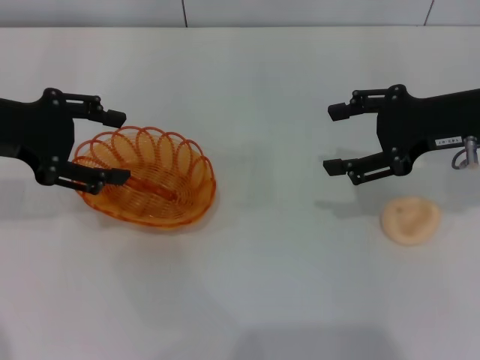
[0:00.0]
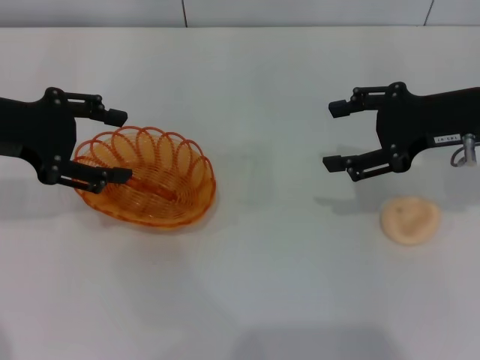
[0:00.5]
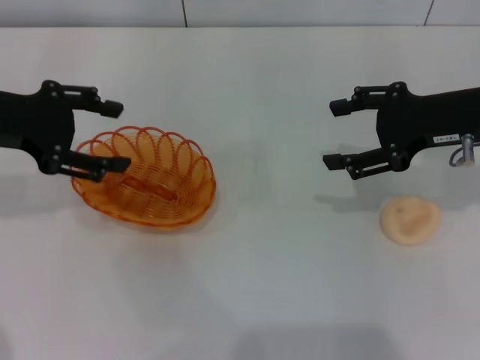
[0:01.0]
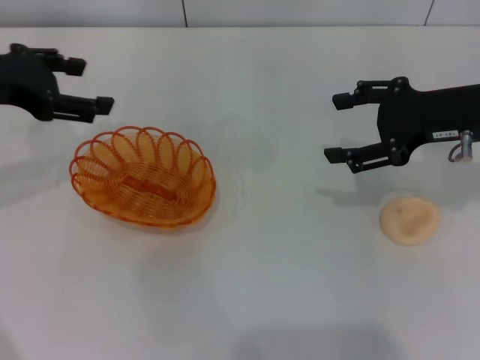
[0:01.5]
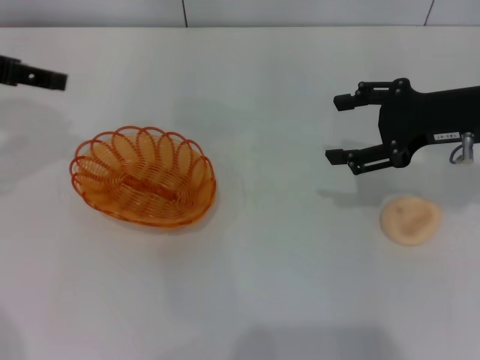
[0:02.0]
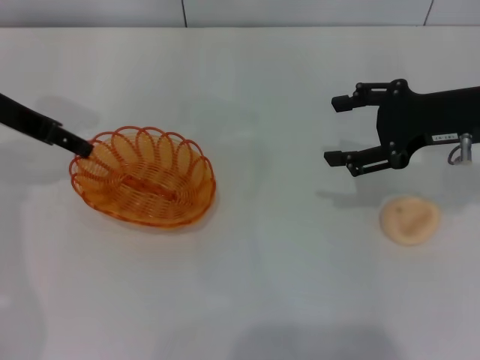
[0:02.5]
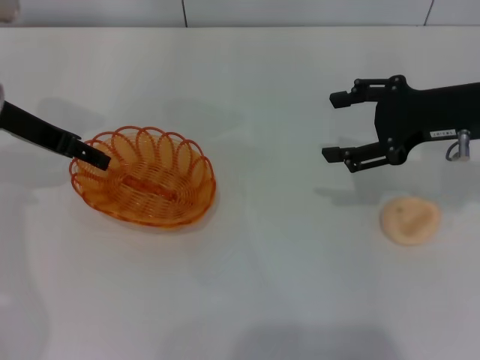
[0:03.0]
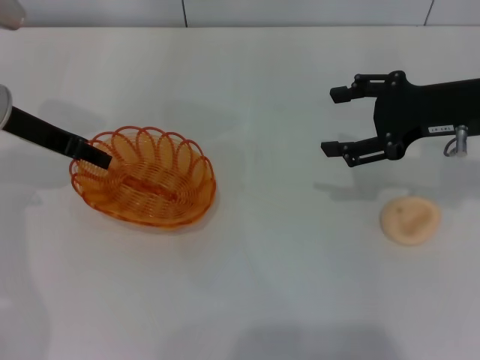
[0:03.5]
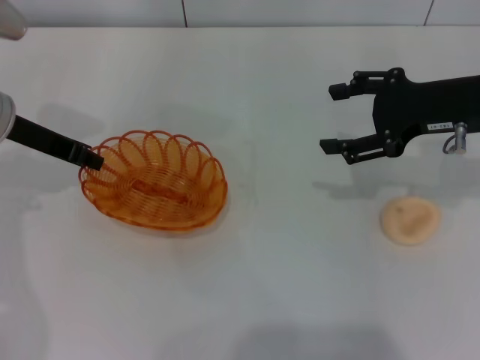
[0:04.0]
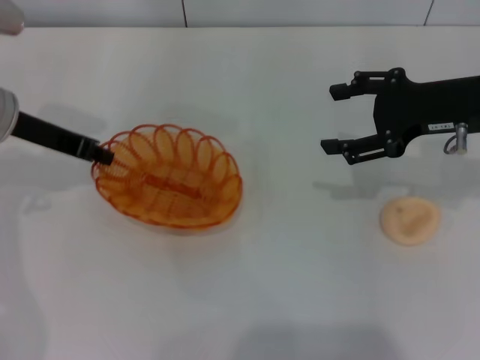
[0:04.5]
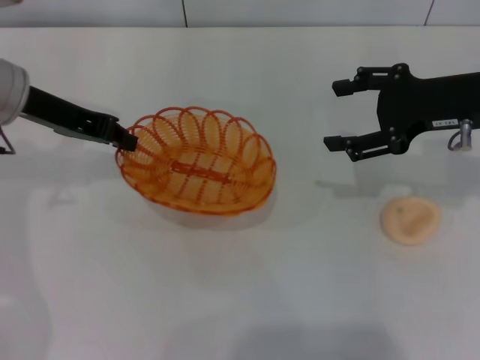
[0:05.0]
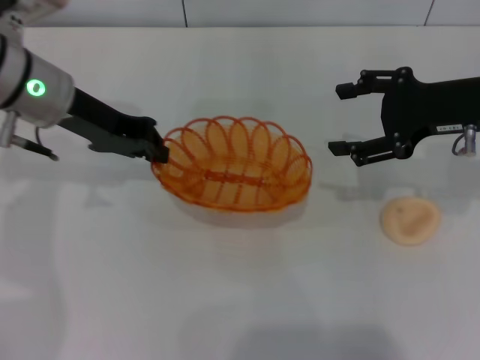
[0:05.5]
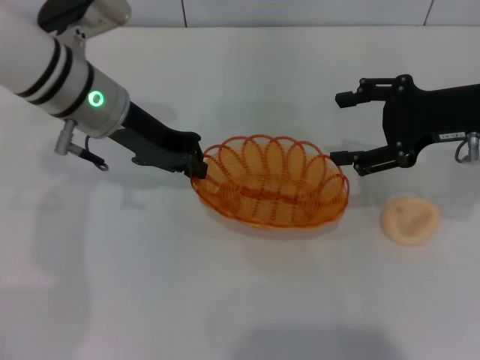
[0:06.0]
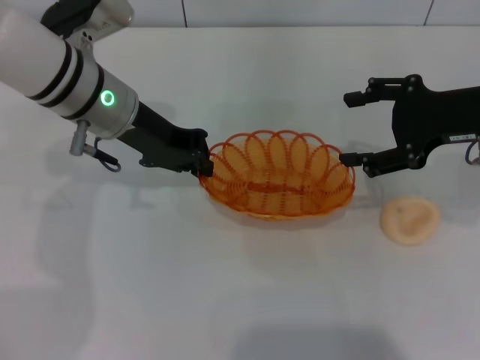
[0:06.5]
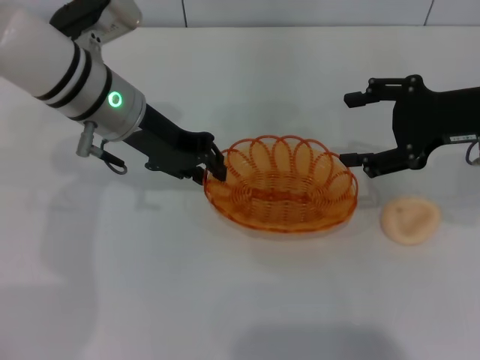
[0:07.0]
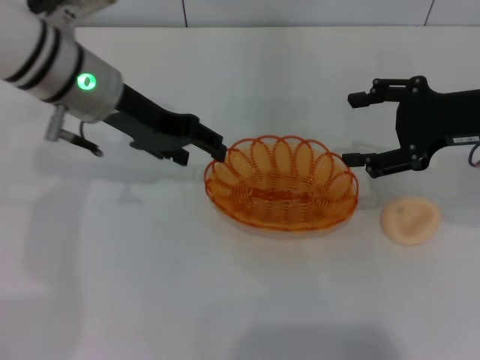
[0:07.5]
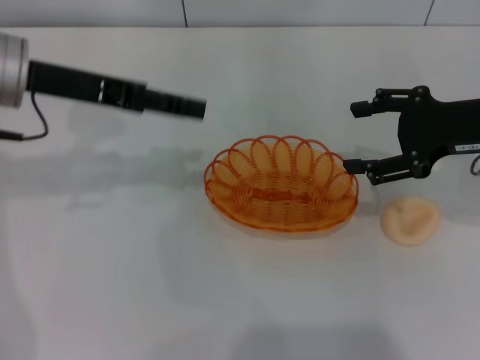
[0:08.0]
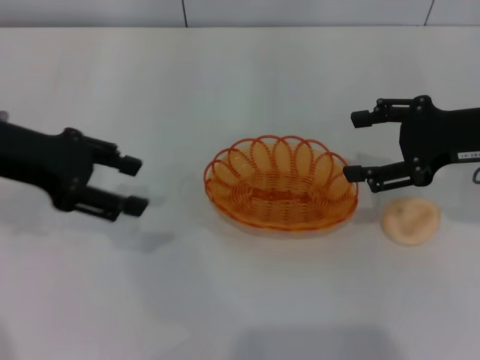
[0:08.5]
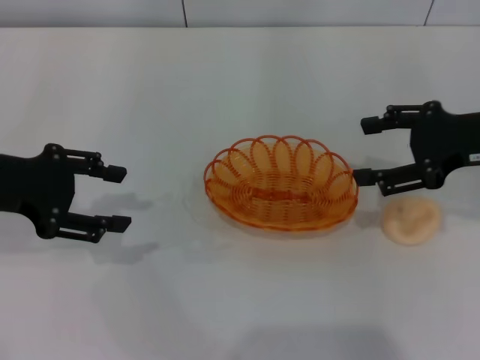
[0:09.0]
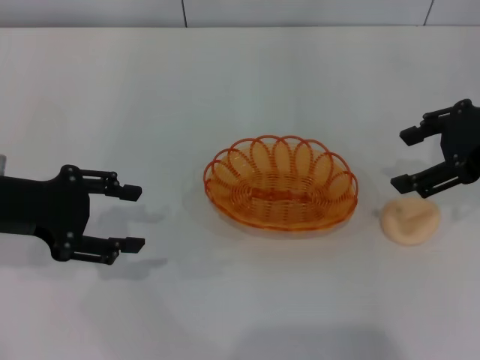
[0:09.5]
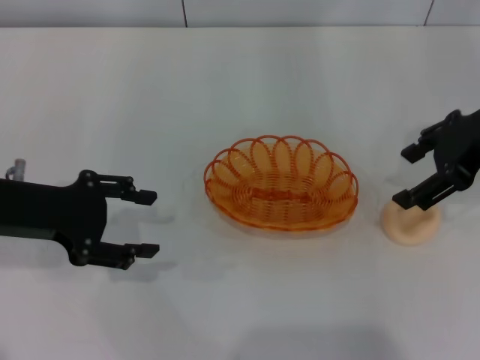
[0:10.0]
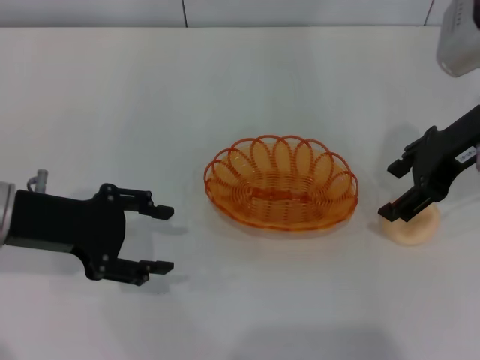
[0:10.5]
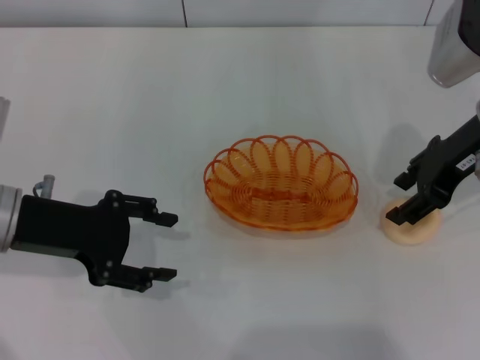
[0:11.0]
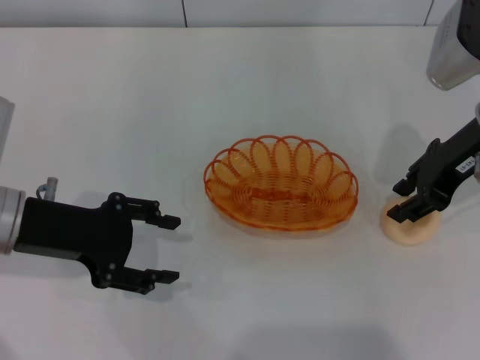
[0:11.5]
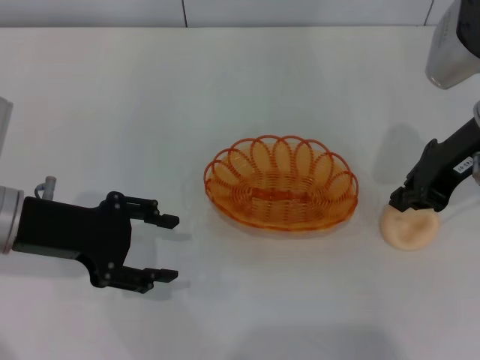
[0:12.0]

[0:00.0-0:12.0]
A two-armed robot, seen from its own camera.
Step, 0:00.0 to 0:04.5: Pick up the basket with the left gripper.
Step, 0:05.0 to 0:08.0: Place the basket in the center of view with the left gripper.
0:00.0 to 0:02.0: The left gripper changes place by some 5 cm.
0:02.0 to 0:04.0: The left gripper goes approximately 10 cm downward, and closes up.
0:04.0 to 0:06.0: The left gripper goes approximately 10 cm to the right.
0:06.0 to 0:08.0: The left gripper moves to the left, about 5 cm, and opens up.
0:08.0 to 0:10.0: The right gripper shifts about 5 cm upward. Meanwhile the left gripper goes approximately 10 cm backward and downward.
0:10.0 to 0:12.0: The right gripper closes up.

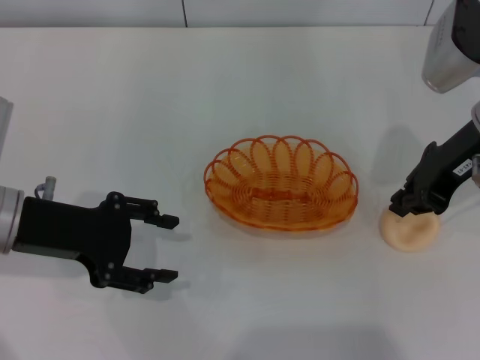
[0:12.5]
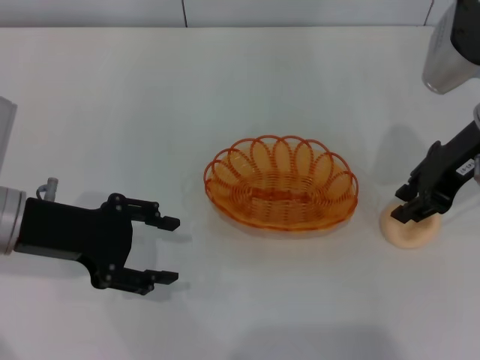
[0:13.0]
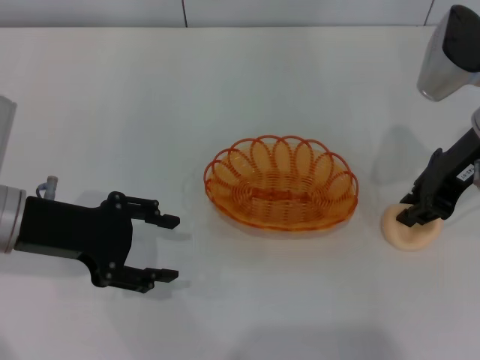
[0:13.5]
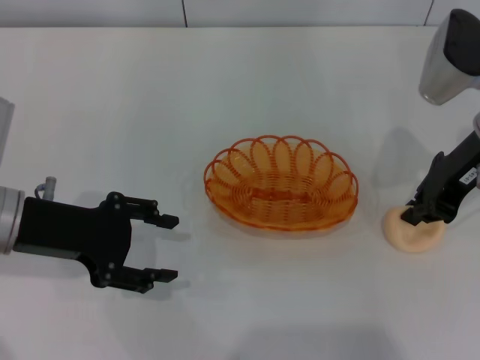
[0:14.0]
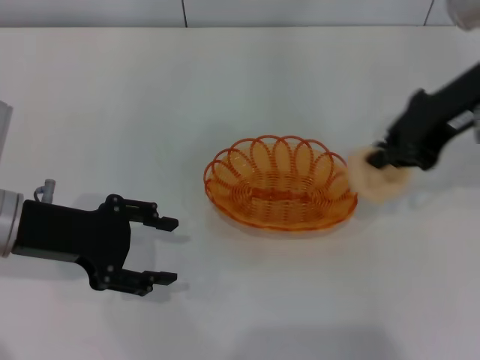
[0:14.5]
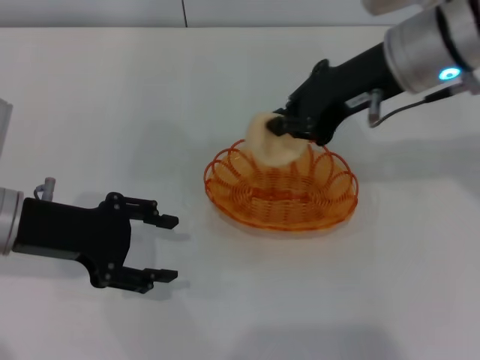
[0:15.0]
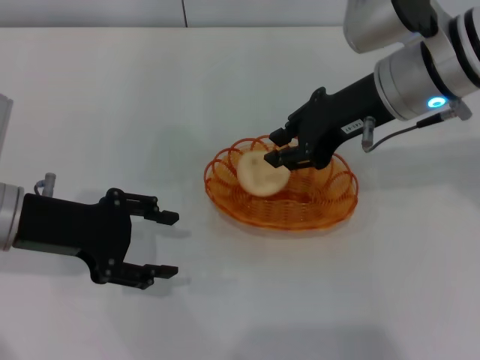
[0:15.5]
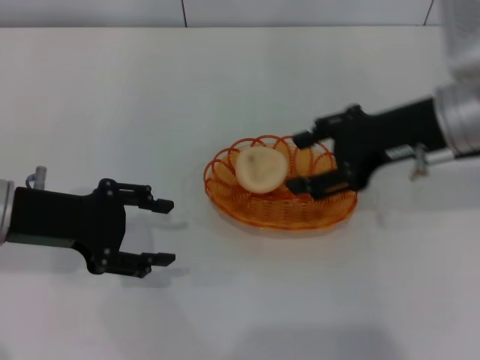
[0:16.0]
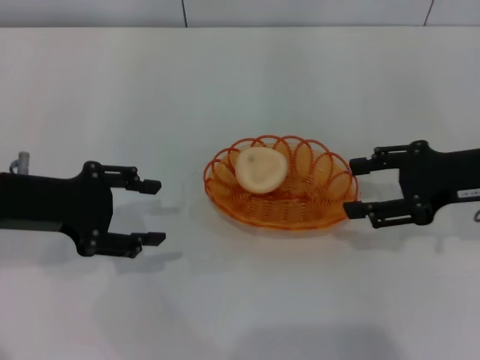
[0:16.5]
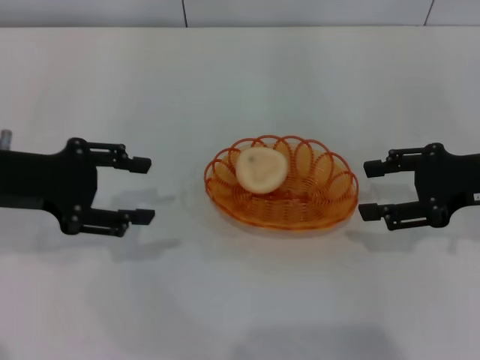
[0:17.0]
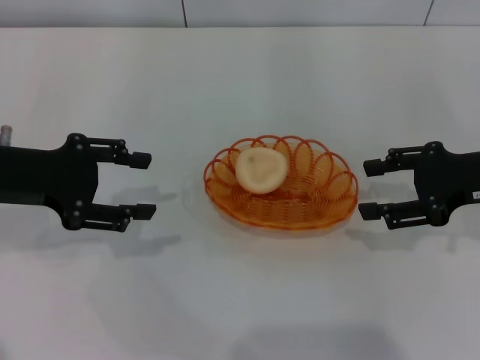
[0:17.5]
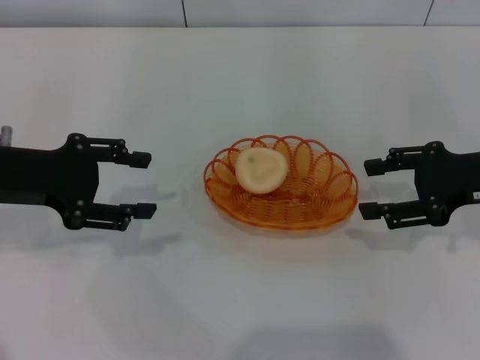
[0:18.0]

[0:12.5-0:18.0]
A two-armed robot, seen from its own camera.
Step, 0:14.5 to 0:16.0: Place the egg yolk pastry into the basket with the right gripper.
0:12.5 to 0:14.5: The right gripper travels upward by approximately 5 cm, and opens, then closes once more.
0:14.5 to 0:16.0: The right gripper heads downward, covering about 5 cm, and opens up.
0:16.0 to 0:18.0: The right gripper shifts approximately 10 cm to the right.

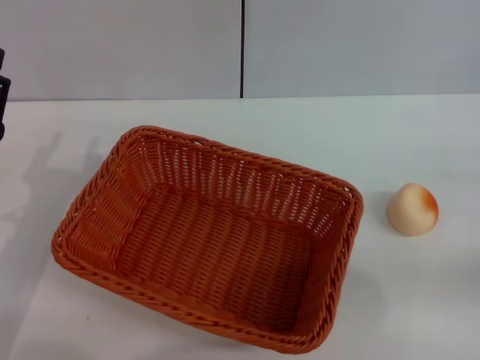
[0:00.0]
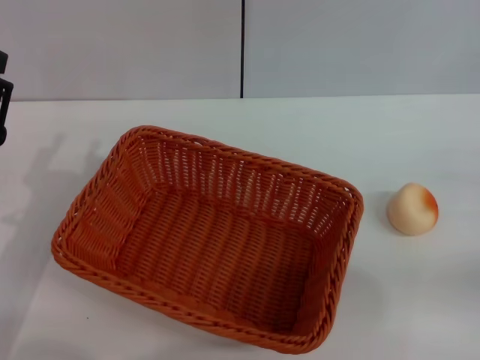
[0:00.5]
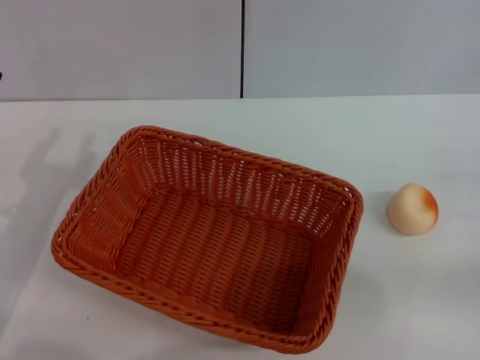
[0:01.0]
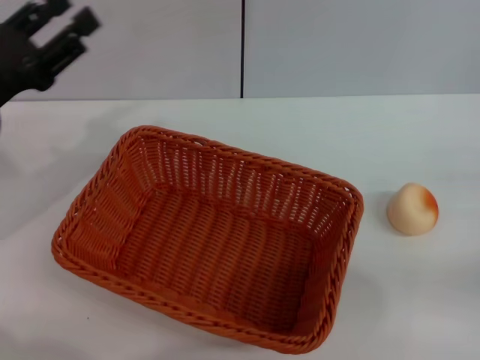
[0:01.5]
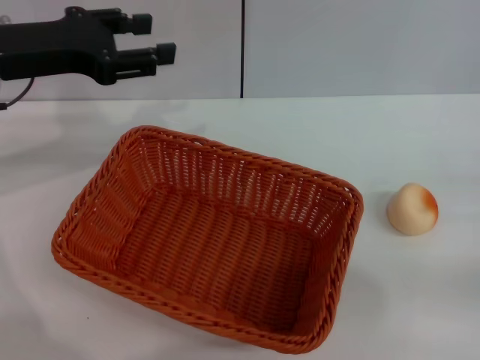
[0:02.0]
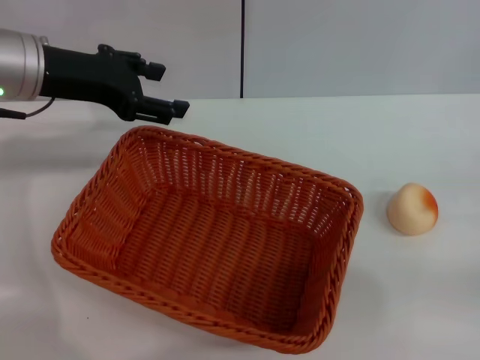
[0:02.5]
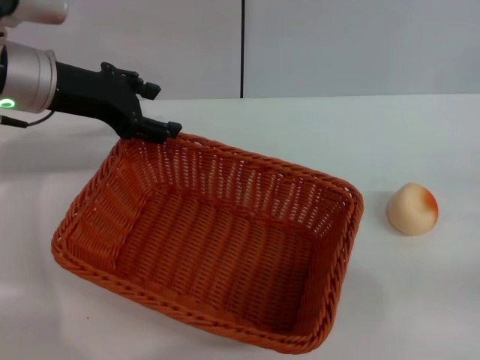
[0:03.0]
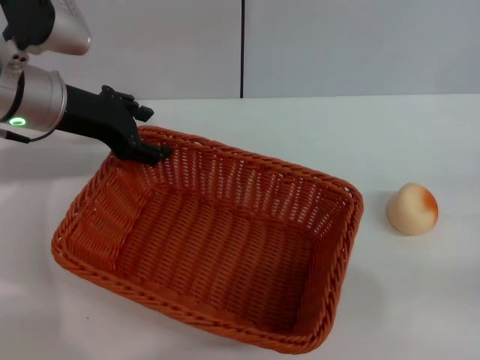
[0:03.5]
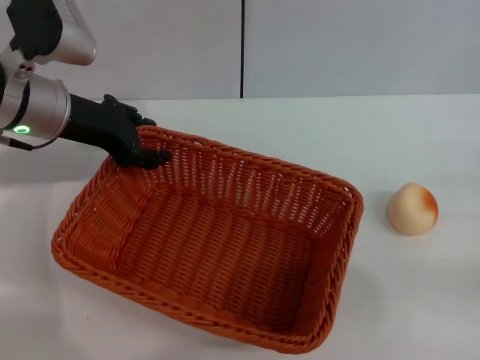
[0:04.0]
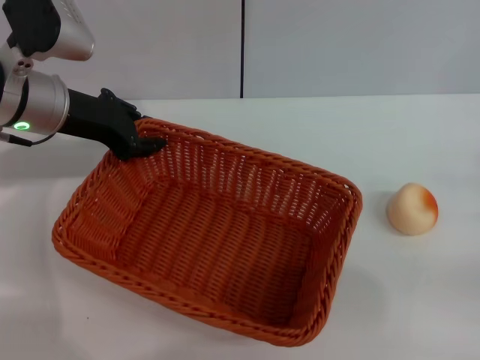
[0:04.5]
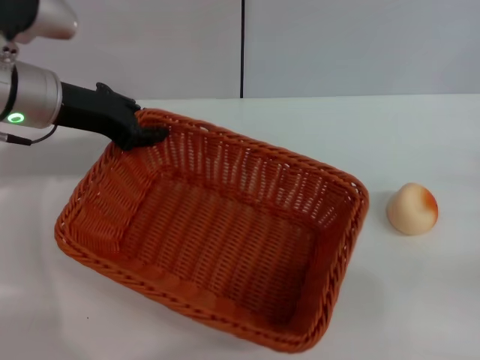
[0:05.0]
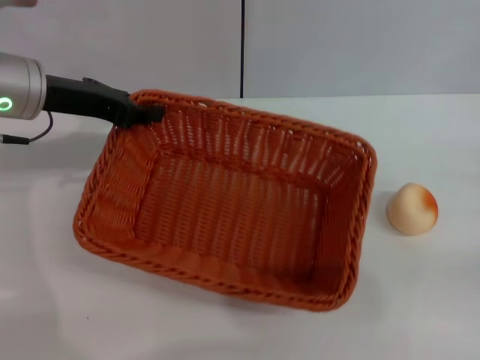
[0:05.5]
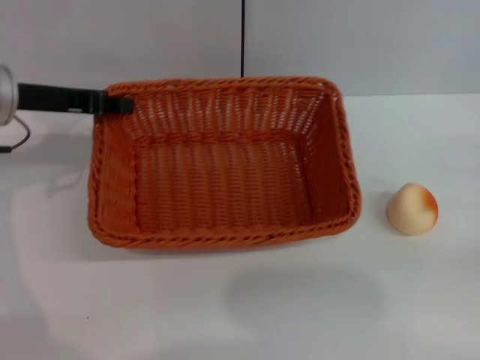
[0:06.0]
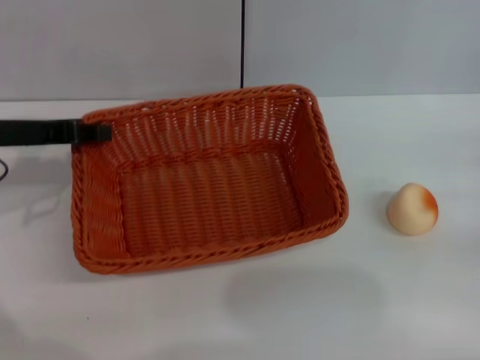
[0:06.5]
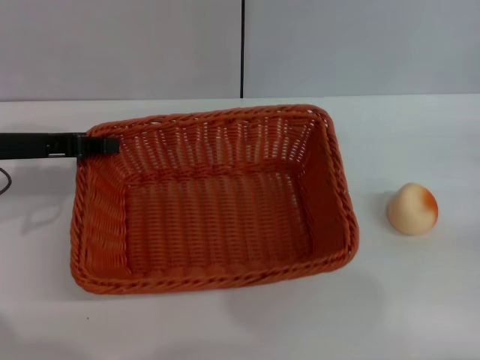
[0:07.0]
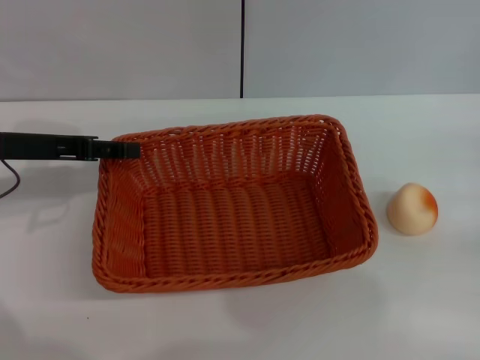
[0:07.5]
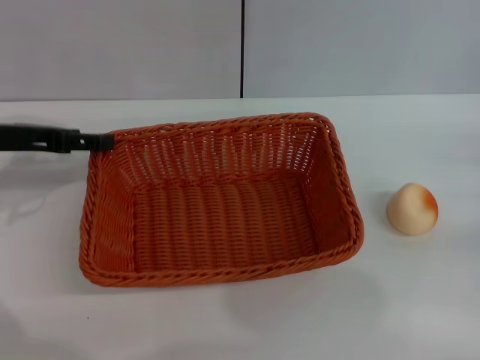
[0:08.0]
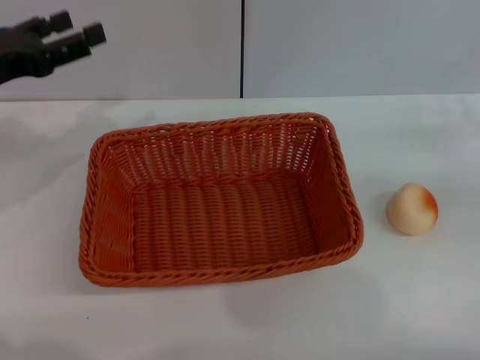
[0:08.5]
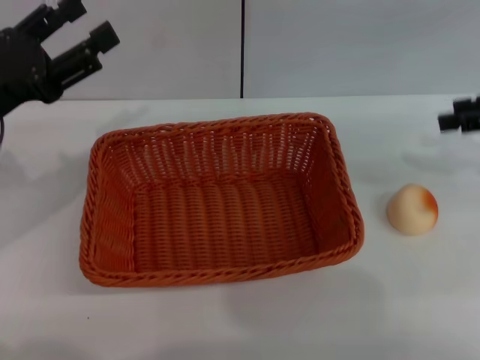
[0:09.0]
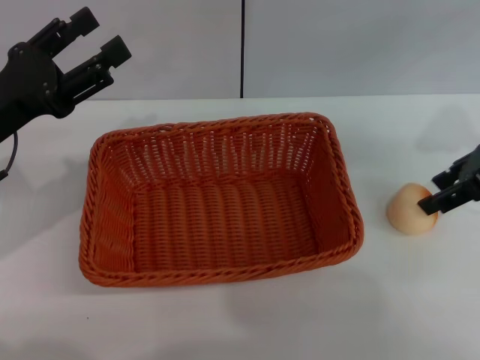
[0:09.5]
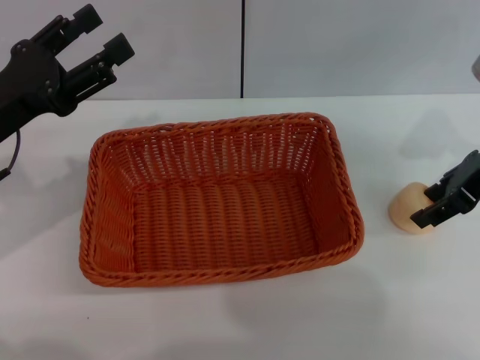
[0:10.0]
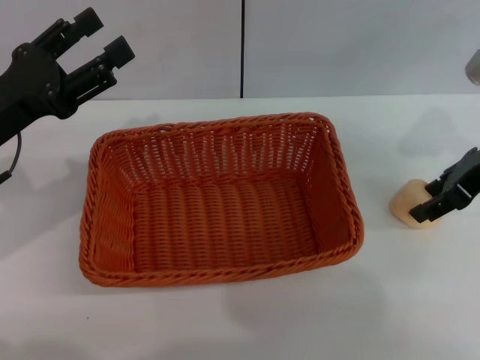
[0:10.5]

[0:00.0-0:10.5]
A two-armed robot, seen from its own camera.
Step, 0:00.0 to 0:08.0: Move the basket to the center of view with the left gripper.
0:00.0 to 0:02.0: The left gripper is displaced upward and forward by some 20 cm.
0:02.0 to 0:04.0: The left gripper moves downward, approximately 5 cm.
0:04.0 to 0:06.5: The left gripper is displaced to the left by approximately 5 cm, and closes its fingers.
0:06.5 to 0:08.5: The left gripper opens up. Meanwhile the right gripper goes some 5 cm upward.
0:08.5 to 0:10.5: The left gripper moves approximately 5 cm; the right gripper goes roughly 15 cm to the left and forward.
